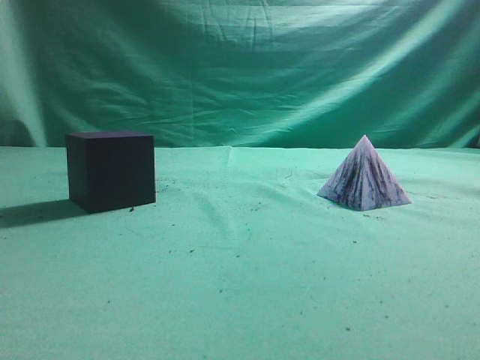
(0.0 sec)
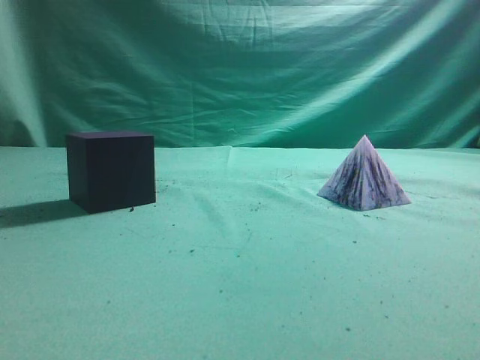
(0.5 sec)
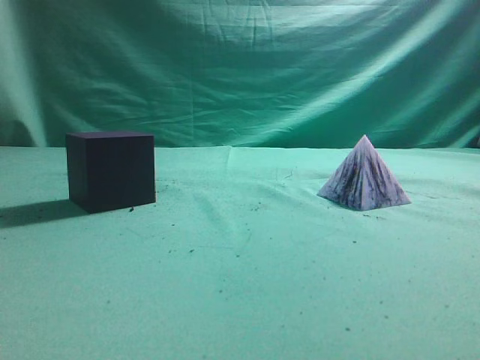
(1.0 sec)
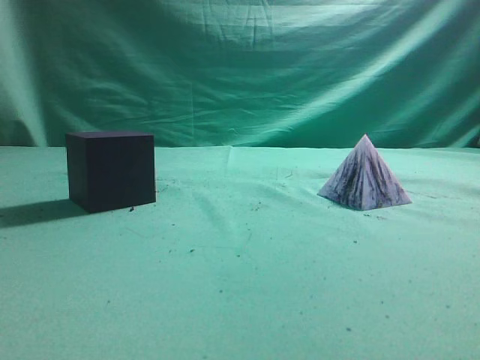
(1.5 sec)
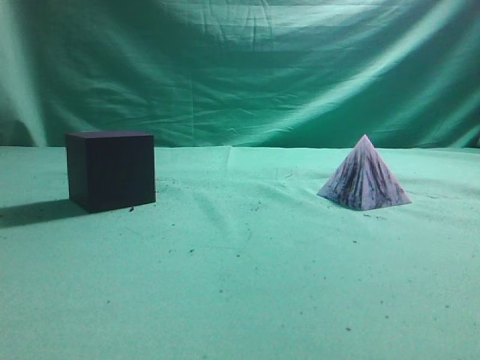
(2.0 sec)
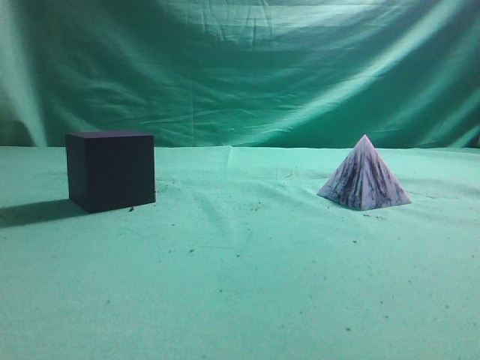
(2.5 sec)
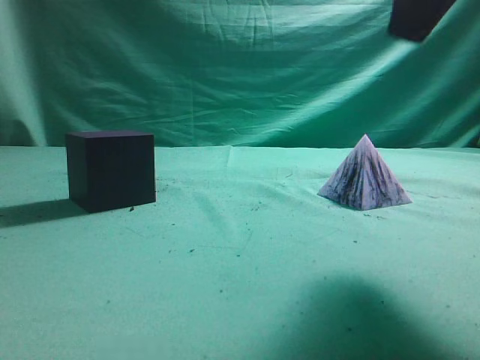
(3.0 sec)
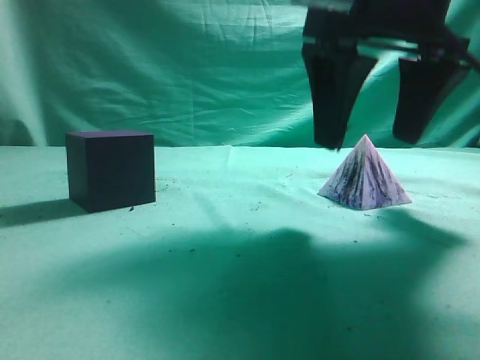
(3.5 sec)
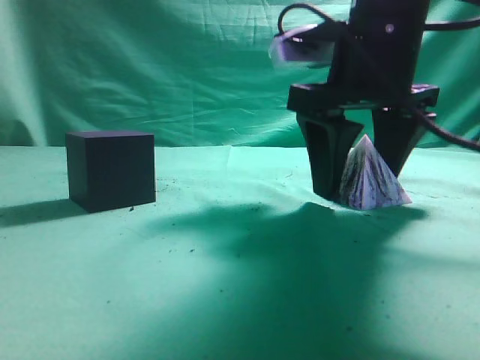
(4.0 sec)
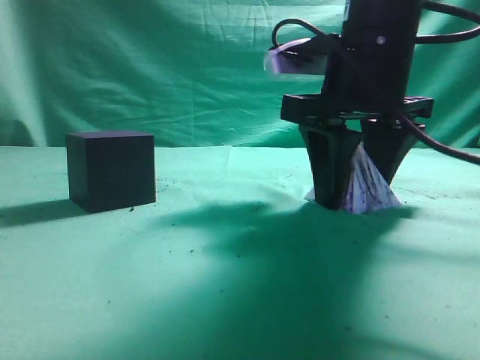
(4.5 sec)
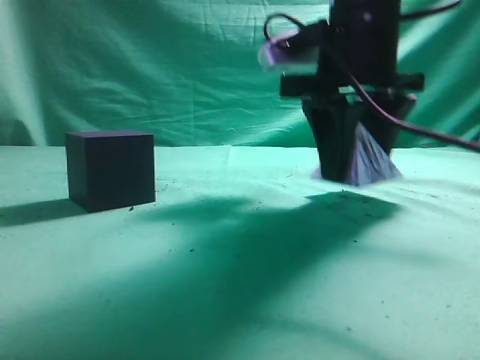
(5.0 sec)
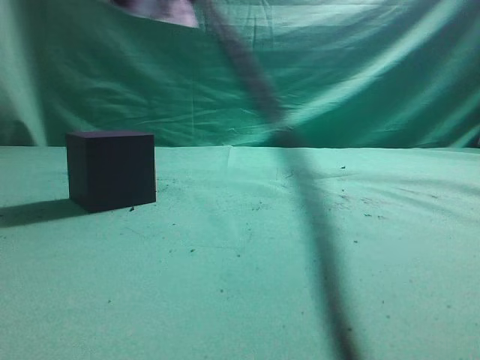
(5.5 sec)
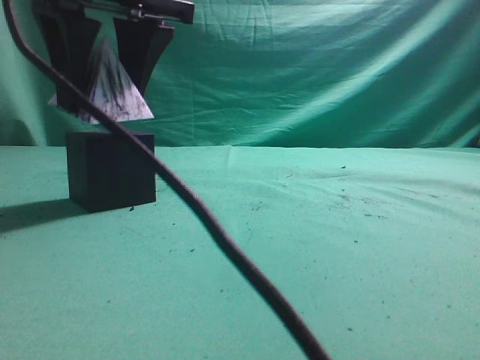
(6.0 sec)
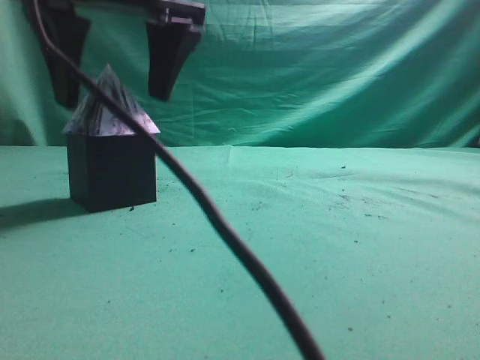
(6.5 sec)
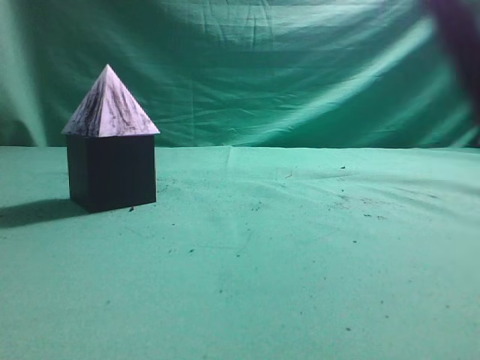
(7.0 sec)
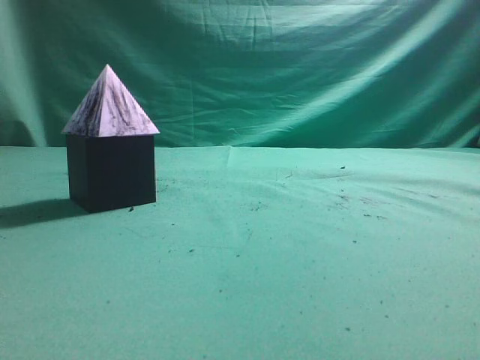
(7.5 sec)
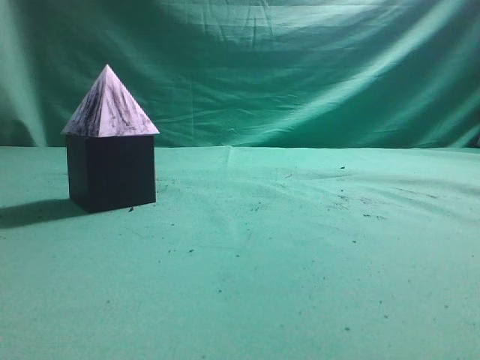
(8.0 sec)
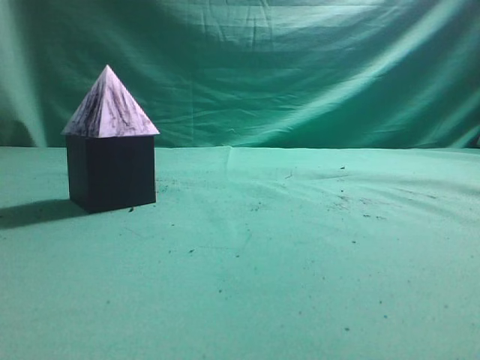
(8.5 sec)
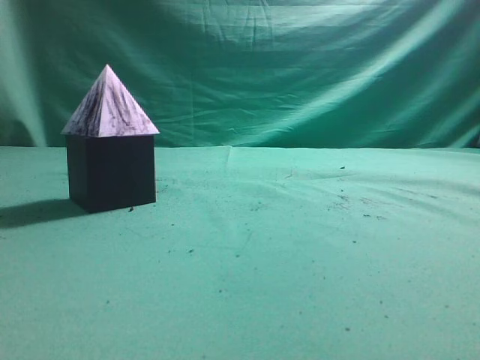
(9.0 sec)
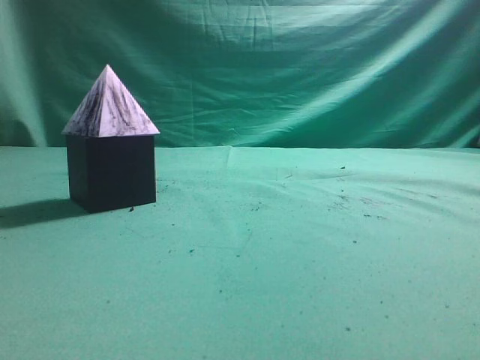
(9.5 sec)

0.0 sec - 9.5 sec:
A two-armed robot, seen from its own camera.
Task of the whole recording: pick up the square pyramid from the table and place it on the cube block.
Step, 0.0 sec - 5.0 sec: Grasp the triangular block.
Step, 5.5 sec - 6.5 sec: Place the block onto the cube-shaped block.
2.0 sec - 4.0 sec: The right gripper moves forward, to the left and downward, about 30 cm, and opens up.
4.0 sec - 5.5 sec: The right gripper is displaced upward and to the left by about 20 cm.
5.5 sec - 7.5 sec: The right gripper heads backward, to the right and upward, covering approximately 25 cm, and closes its fingers.
